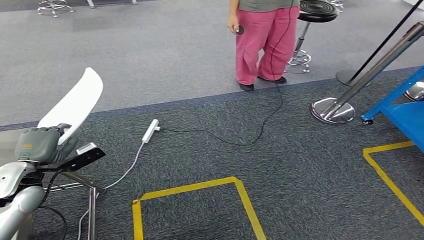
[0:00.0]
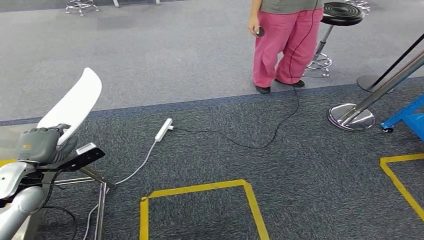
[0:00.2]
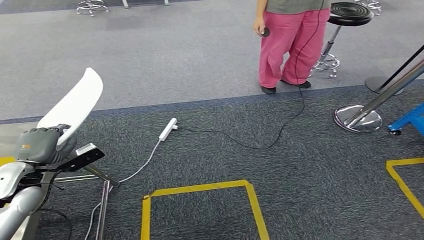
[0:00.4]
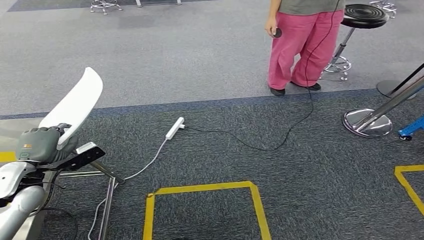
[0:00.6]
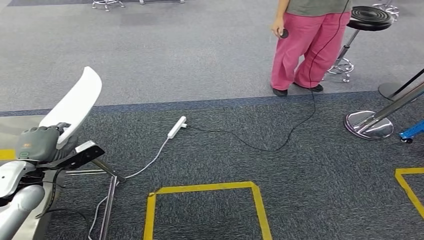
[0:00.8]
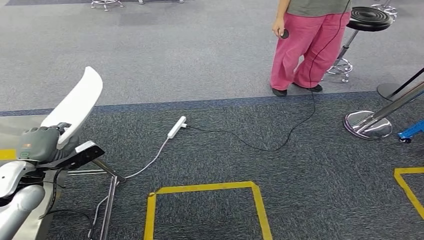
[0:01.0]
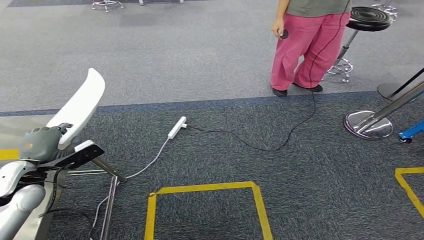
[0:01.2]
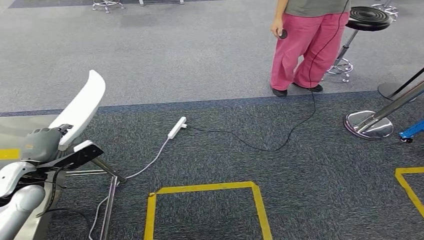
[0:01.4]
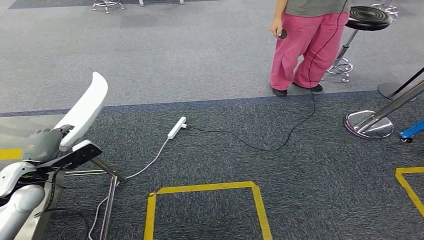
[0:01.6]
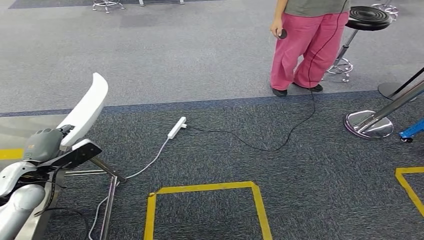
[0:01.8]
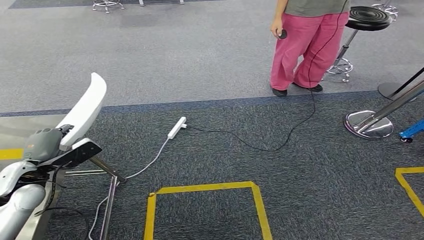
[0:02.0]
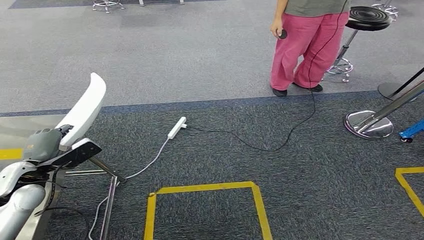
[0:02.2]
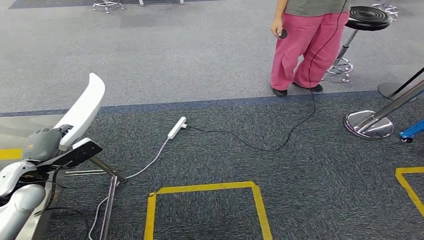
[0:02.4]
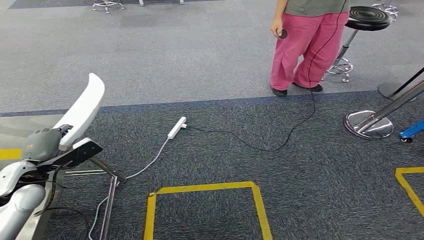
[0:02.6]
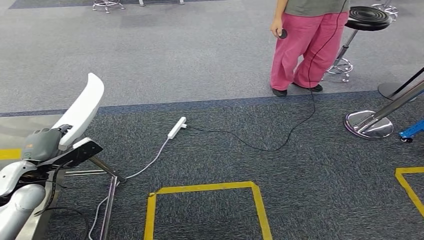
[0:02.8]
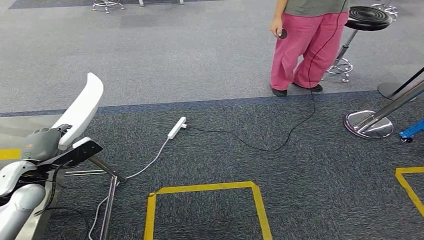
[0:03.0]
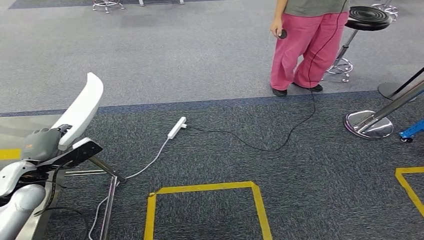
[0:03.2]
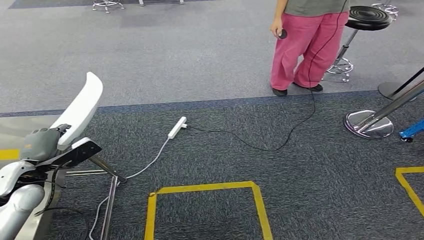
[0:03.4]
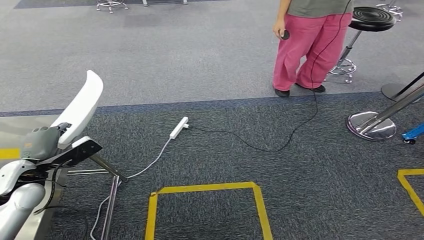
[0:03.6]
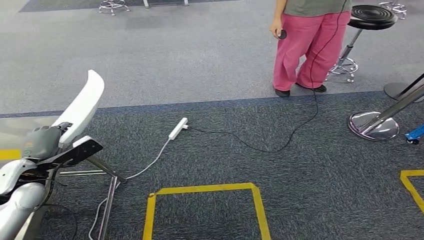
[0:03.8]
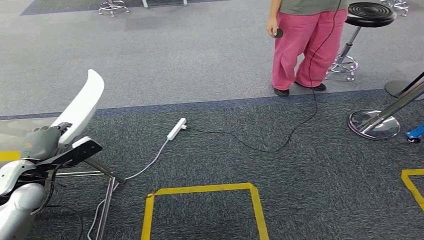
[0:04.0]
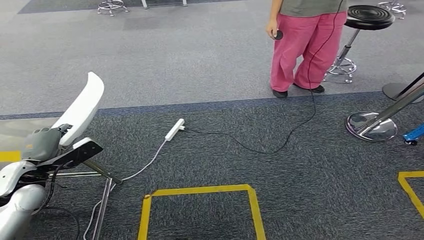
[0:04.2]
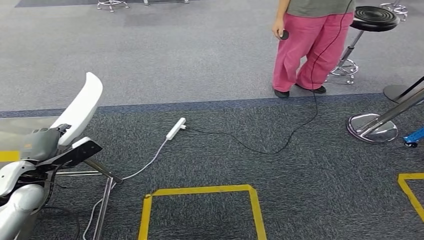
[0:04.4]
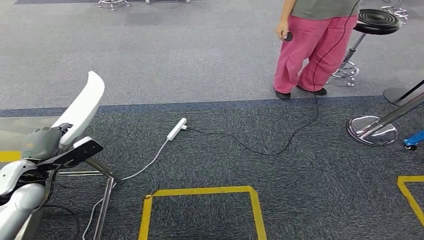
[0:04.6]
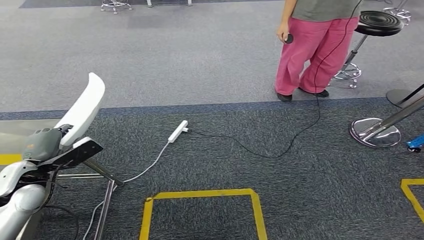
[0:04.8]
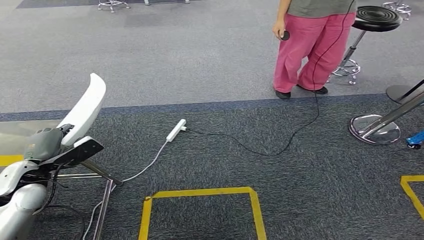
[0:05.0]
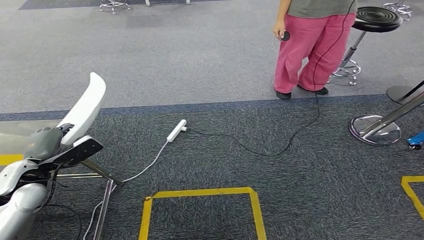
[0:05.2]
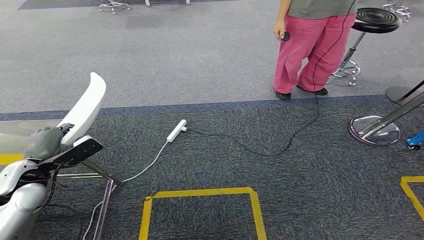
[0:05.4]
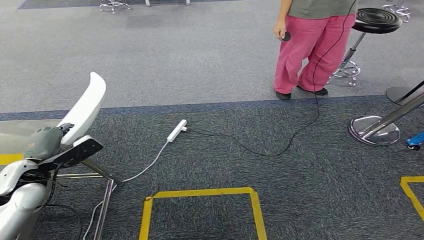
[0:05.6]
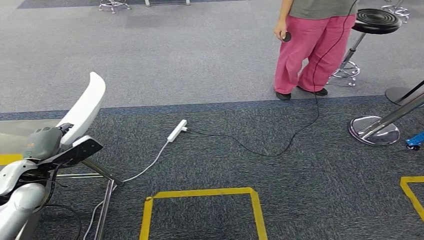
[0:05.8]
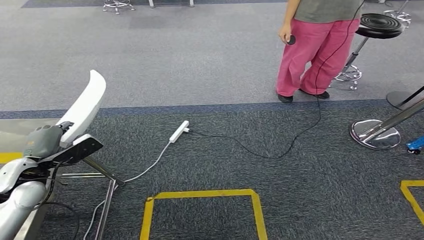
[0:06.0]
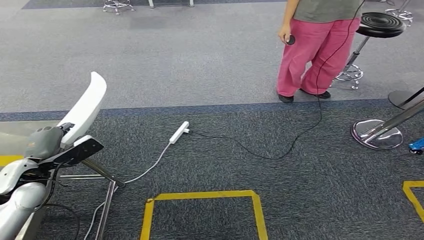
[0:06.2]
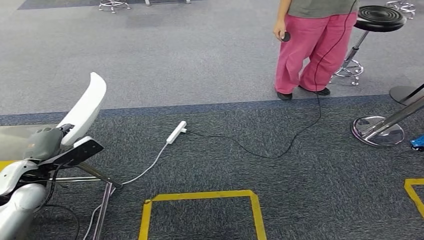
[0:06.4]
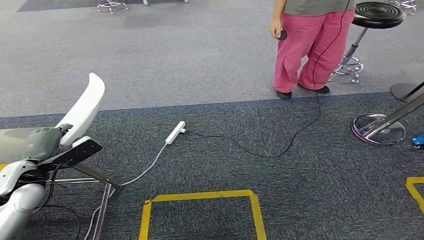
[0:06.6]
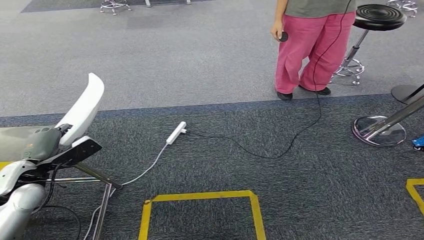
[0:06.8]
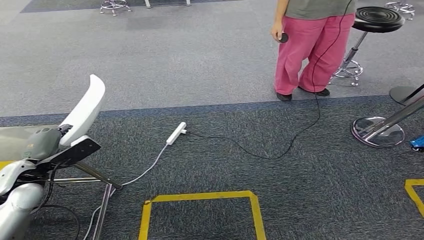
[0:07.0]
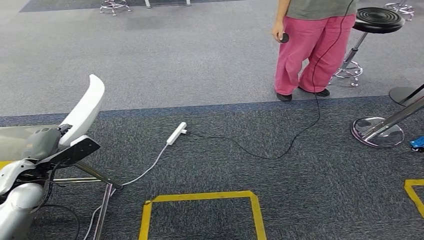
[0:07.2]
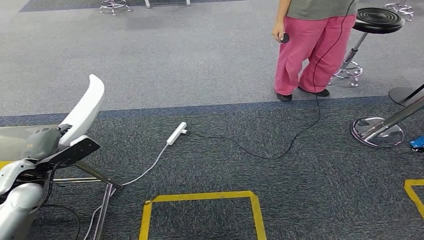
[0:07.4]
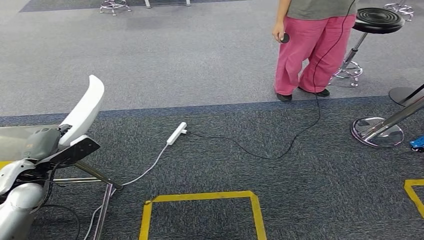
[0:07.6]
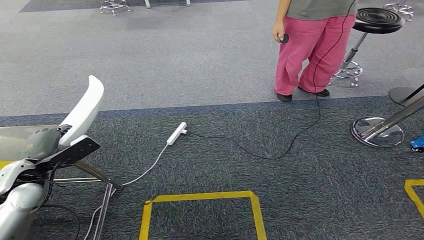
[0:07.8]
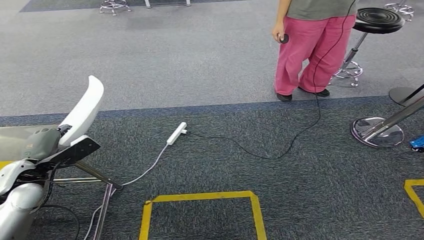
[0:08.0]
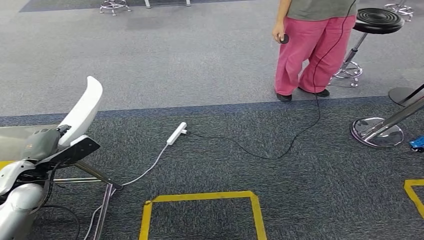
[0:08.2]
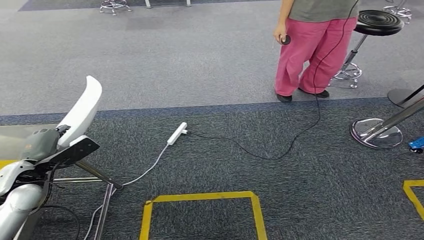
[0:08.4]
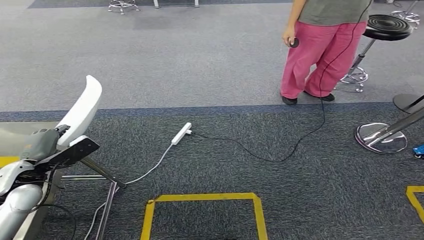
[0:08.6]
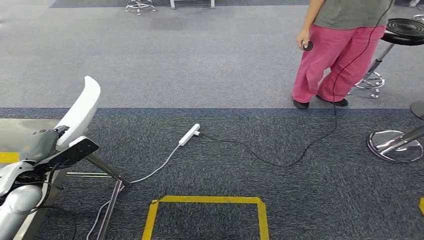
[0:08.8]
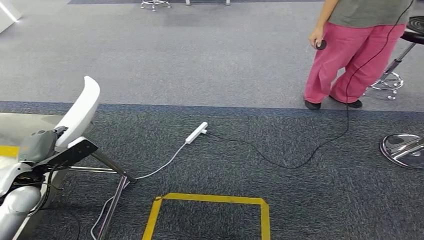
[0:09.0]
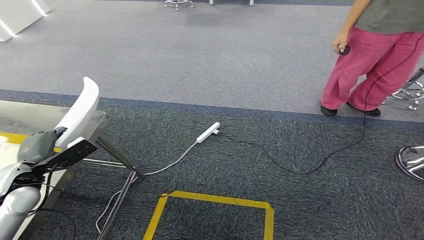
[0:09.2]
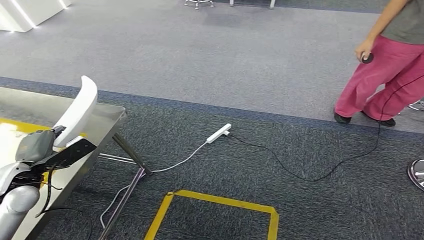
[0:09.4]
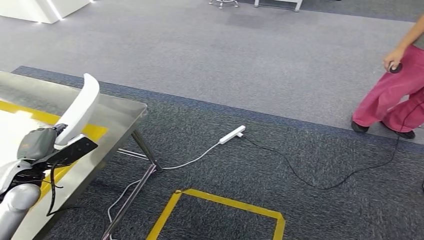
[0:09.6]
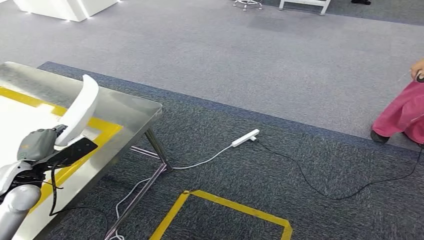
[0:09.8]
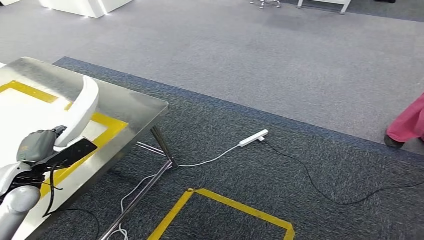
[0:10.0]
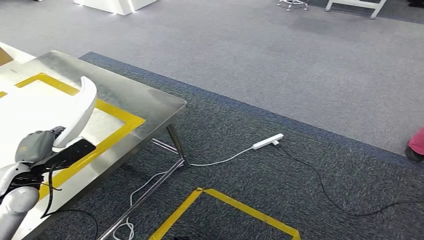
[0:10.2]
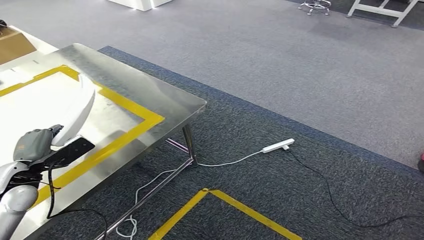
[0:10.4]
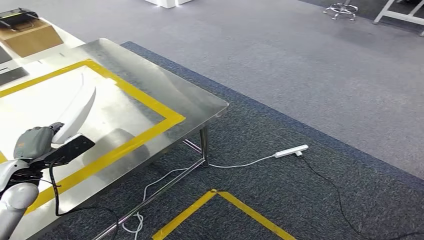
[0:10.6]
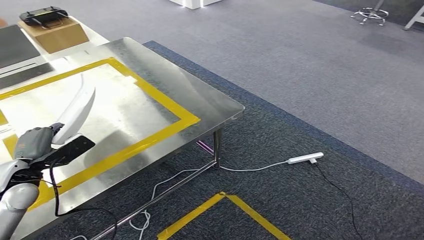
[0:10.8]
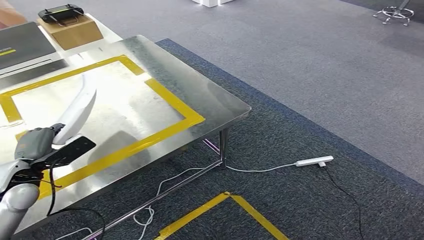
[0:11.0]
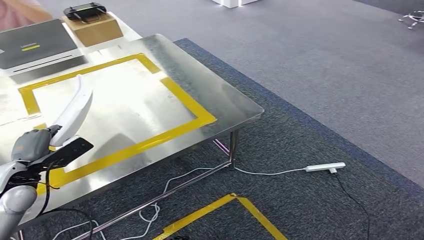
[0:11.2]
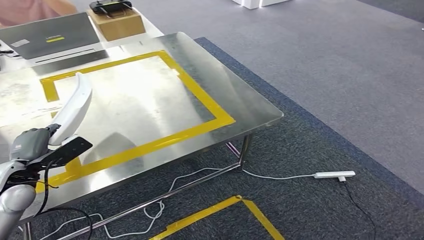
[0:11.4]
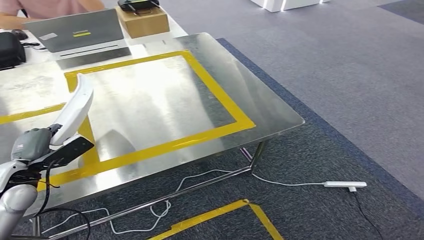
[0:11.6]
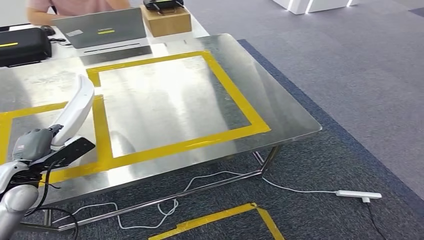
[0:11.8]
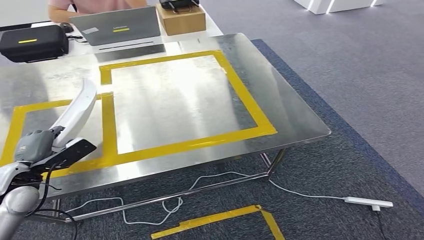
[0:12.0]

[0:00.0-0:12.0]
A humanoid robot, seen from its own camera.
Step, 0:00.0 to 0:09.4: Bring the small component to the front of the workbench.
0:01.6 to 0:06.0: The two hands keep their place.
0:06.0 to 0:07.6: Both hands stay about where they are.

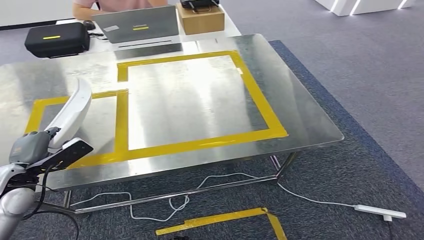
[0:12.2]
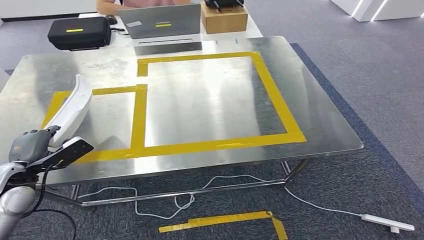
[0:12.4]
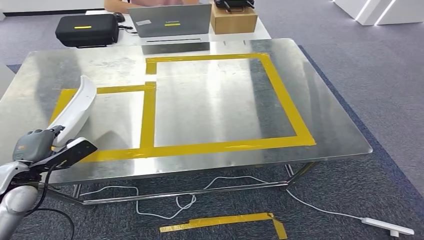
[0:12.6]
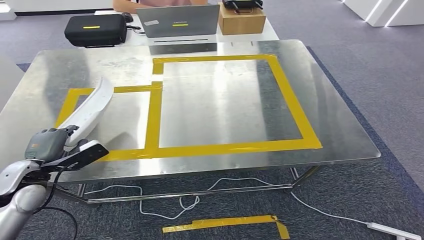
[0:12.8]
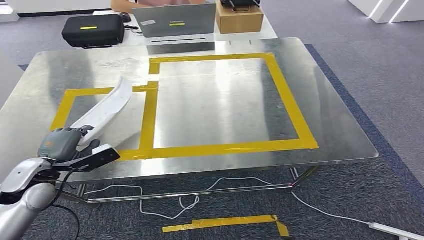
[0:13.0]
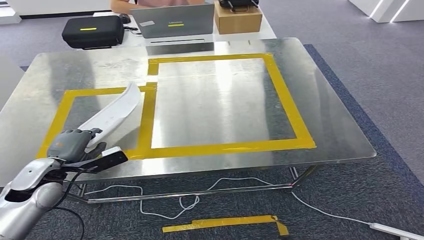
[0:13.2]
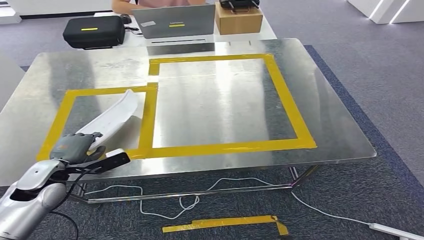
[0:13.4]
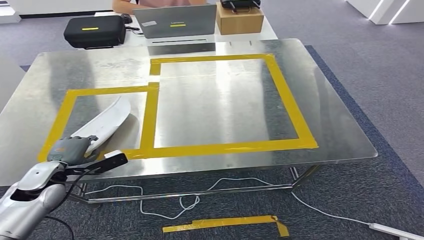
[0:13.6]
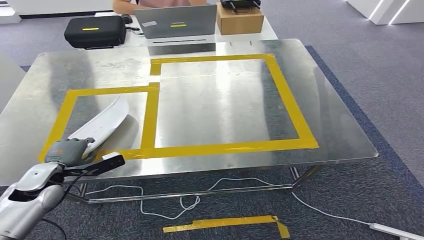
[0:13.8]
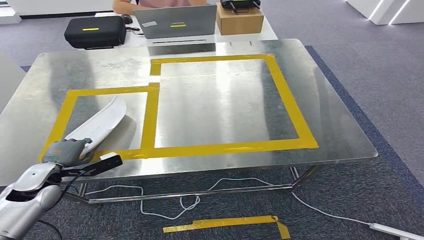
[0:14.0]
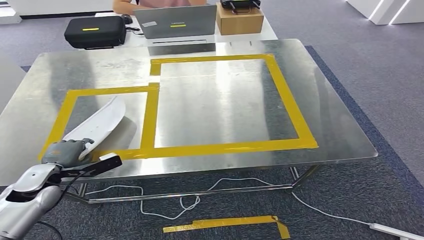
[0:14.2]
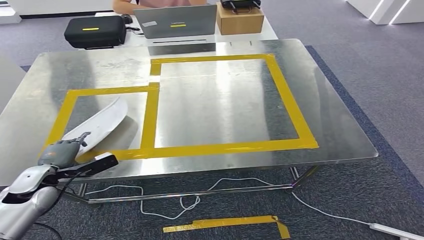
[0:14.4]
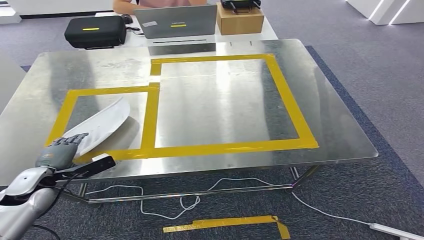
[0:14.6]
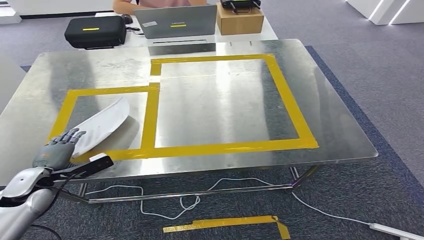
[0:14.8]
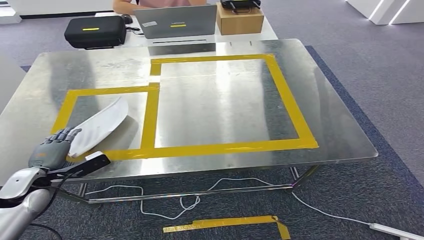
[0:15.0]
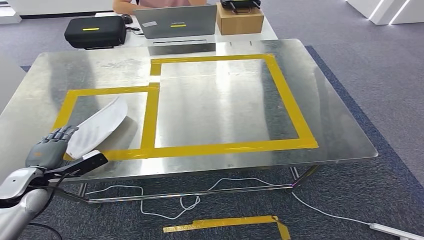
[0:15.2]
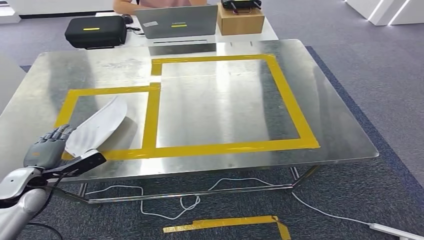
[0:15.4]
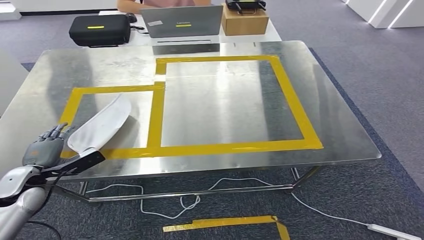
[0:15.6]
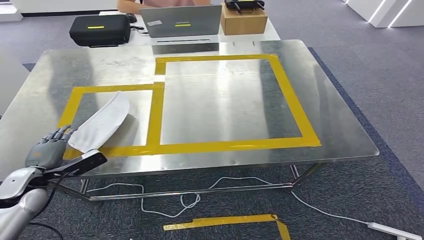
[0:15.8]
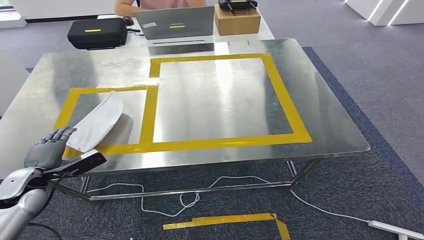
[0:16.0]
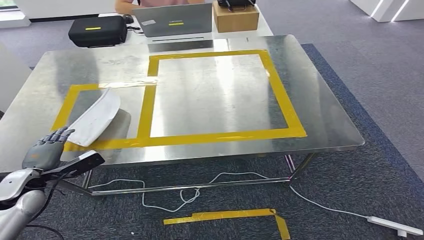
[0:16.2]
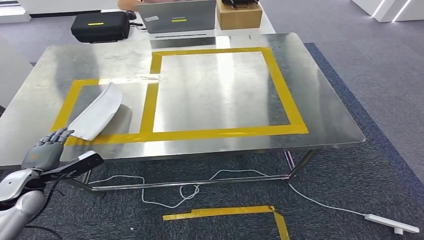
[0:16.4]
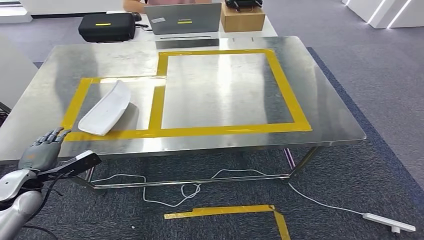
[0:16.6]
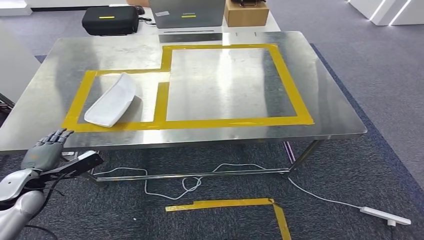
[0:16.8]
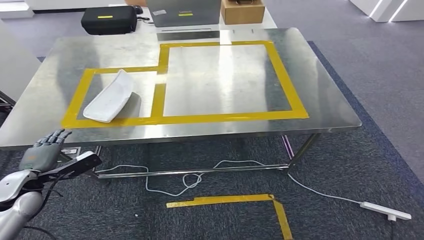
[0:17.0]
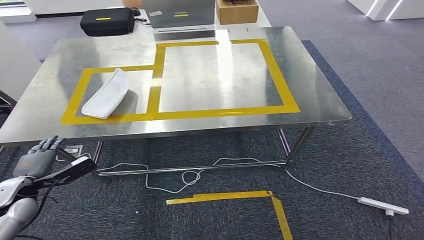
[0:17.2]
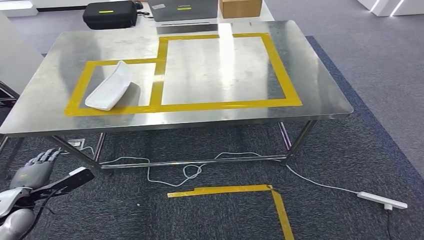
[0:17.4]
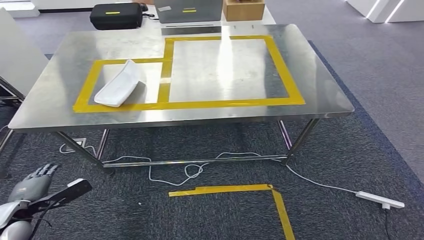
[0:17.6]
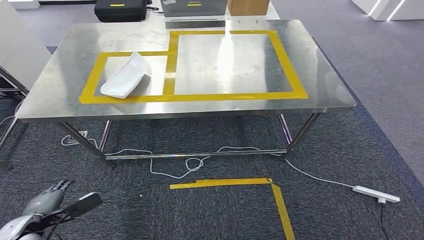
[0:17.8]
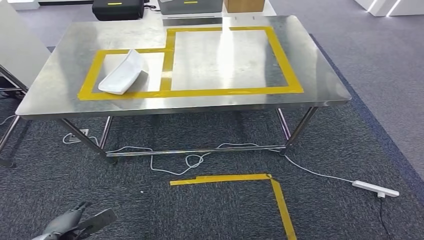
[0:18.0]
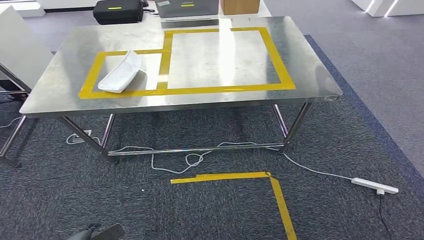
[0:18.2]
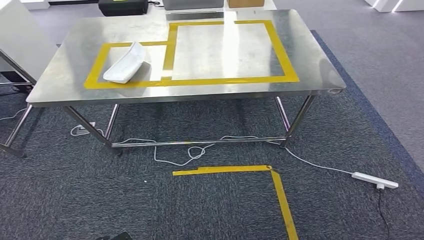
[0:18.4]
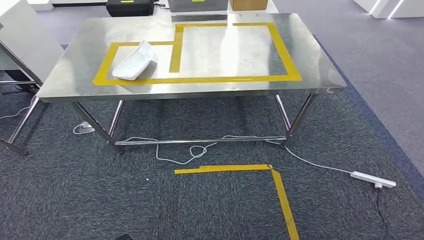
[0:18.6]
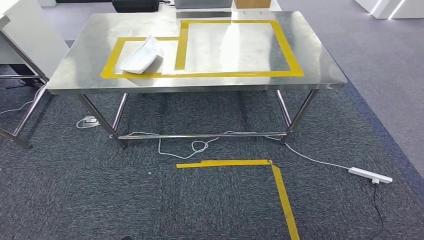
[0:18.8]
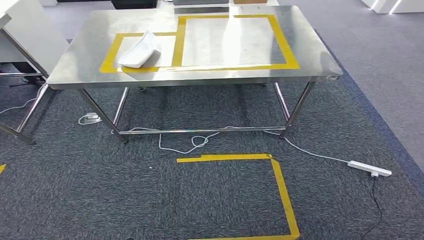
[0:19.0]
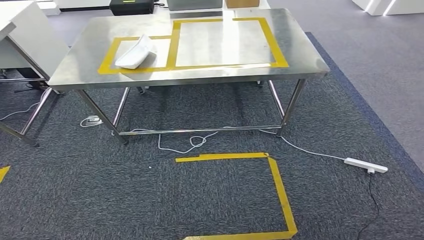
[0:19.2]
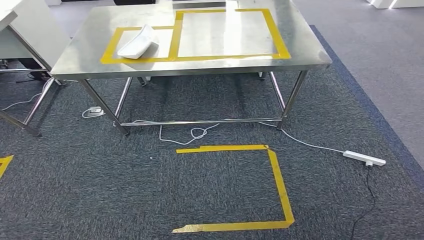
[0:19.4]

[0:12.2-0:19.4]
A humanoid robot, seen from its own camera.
0:13.6 to 0:15.0: The hands move only a little.